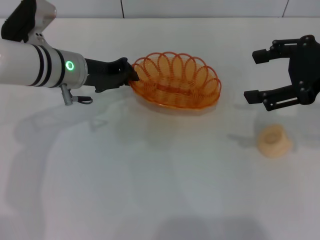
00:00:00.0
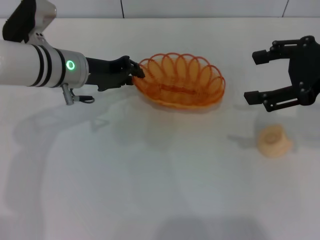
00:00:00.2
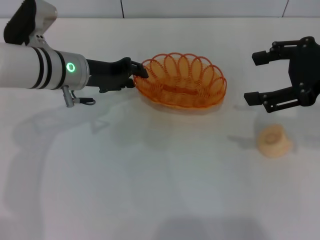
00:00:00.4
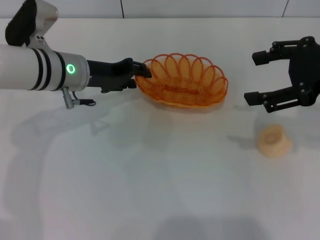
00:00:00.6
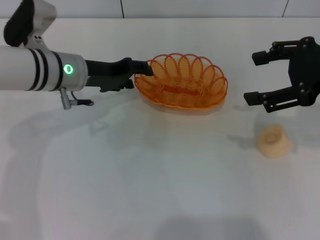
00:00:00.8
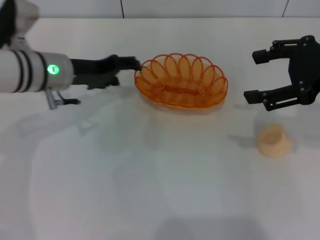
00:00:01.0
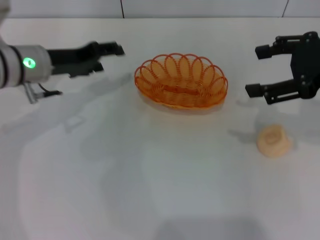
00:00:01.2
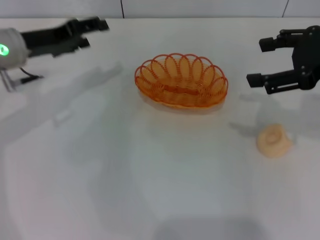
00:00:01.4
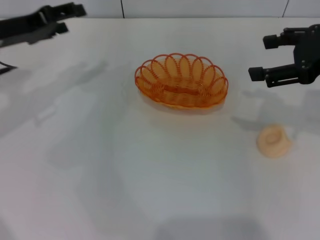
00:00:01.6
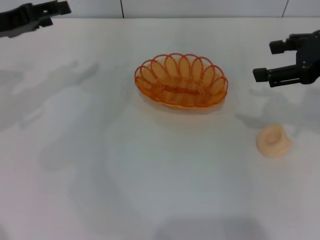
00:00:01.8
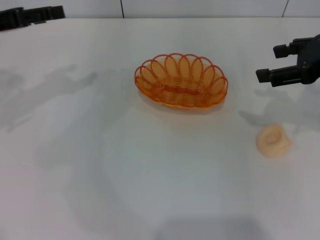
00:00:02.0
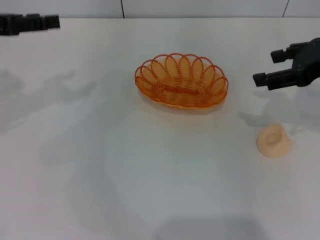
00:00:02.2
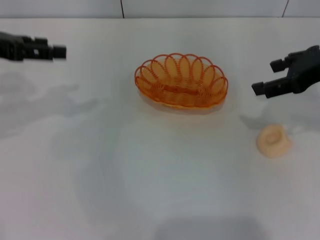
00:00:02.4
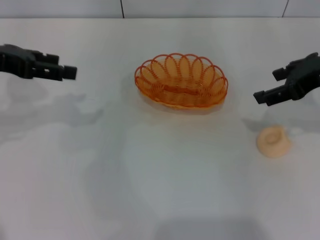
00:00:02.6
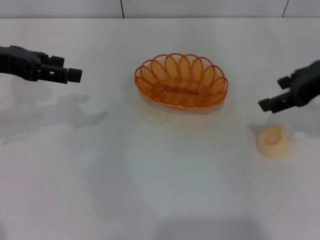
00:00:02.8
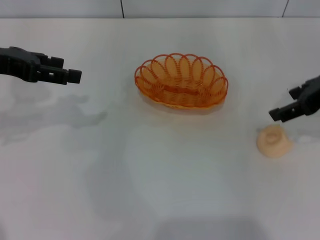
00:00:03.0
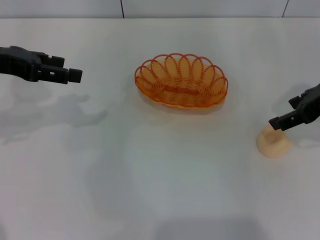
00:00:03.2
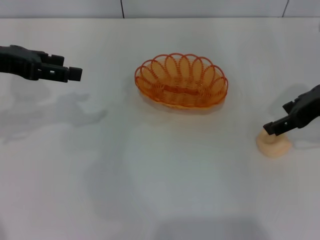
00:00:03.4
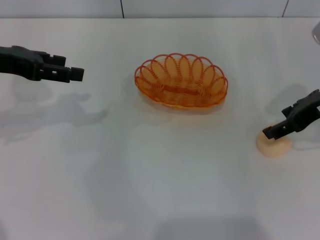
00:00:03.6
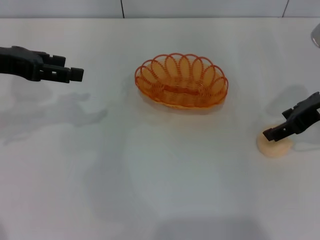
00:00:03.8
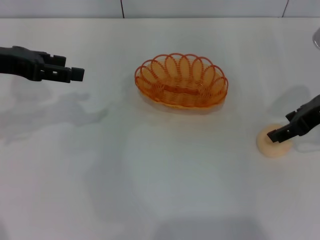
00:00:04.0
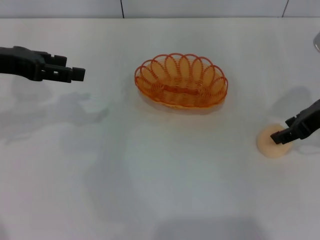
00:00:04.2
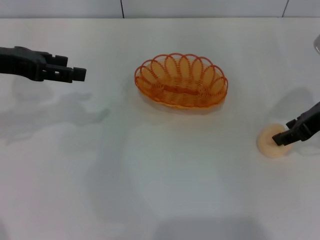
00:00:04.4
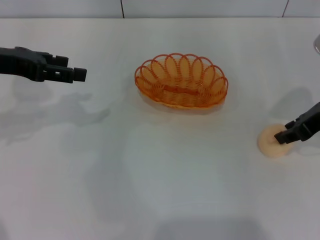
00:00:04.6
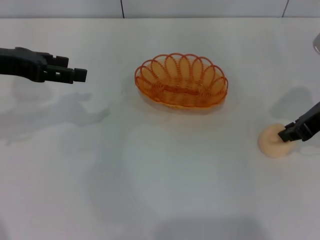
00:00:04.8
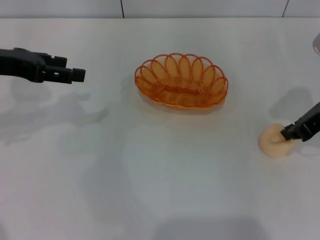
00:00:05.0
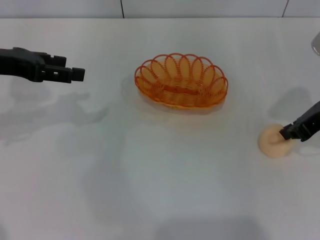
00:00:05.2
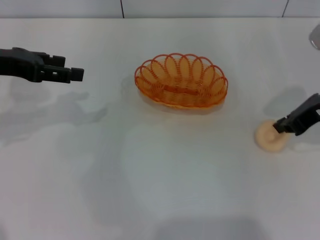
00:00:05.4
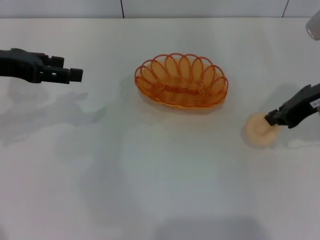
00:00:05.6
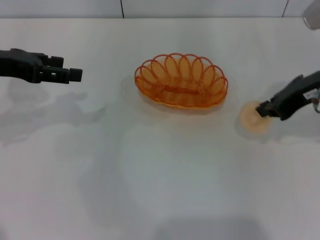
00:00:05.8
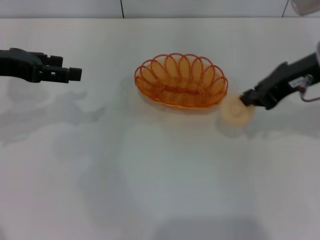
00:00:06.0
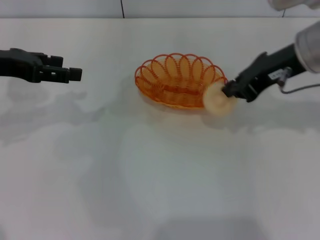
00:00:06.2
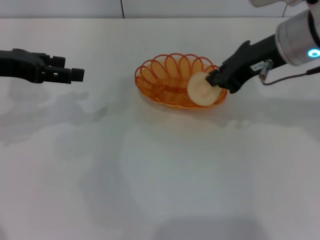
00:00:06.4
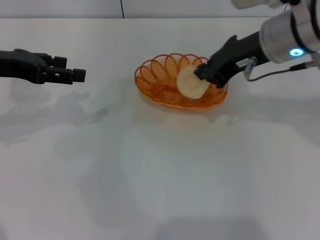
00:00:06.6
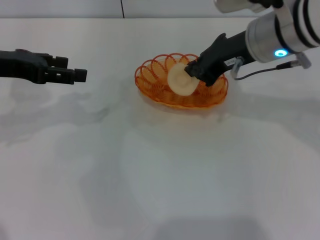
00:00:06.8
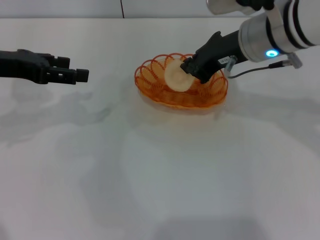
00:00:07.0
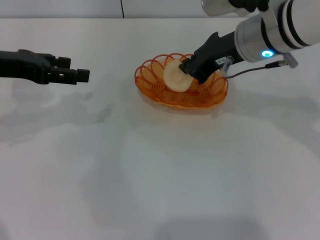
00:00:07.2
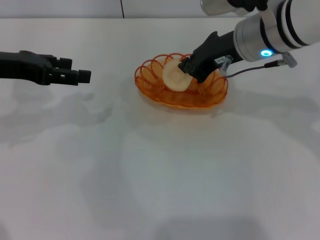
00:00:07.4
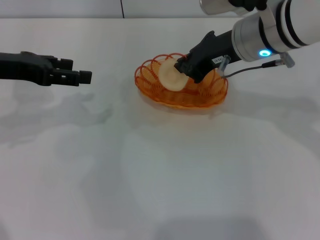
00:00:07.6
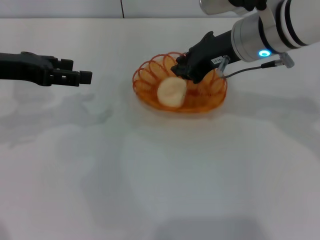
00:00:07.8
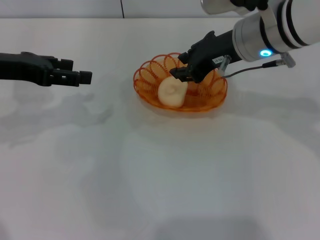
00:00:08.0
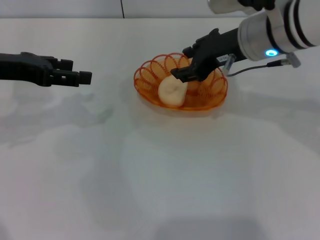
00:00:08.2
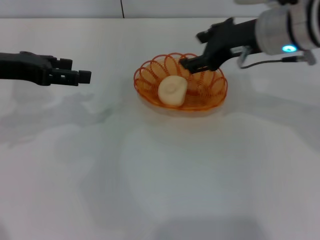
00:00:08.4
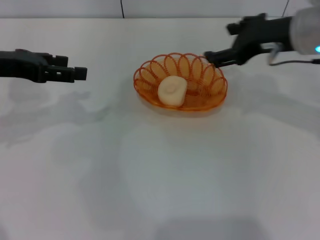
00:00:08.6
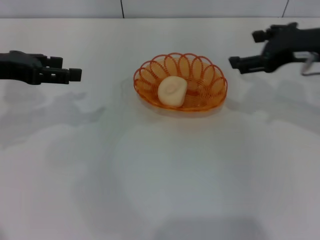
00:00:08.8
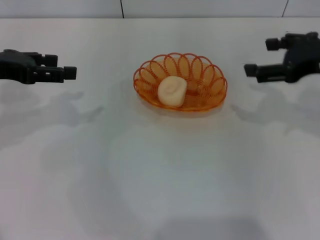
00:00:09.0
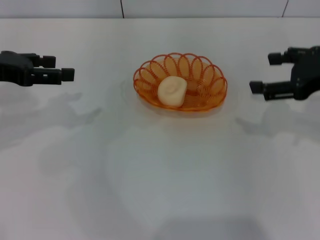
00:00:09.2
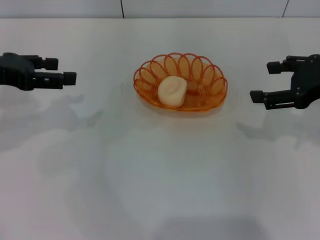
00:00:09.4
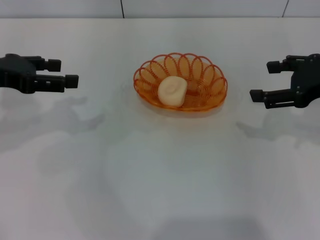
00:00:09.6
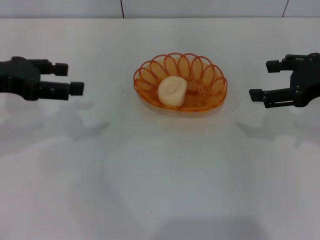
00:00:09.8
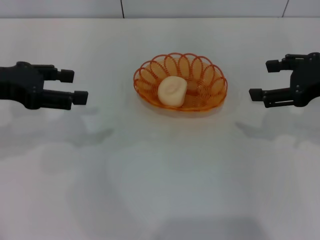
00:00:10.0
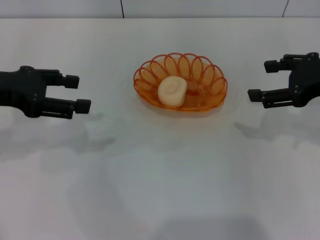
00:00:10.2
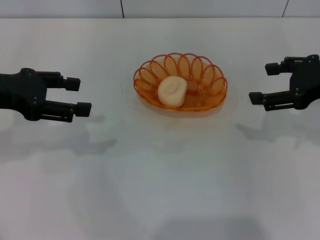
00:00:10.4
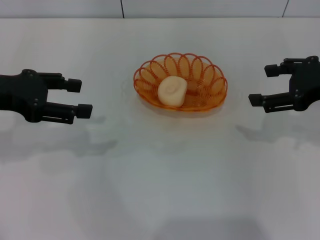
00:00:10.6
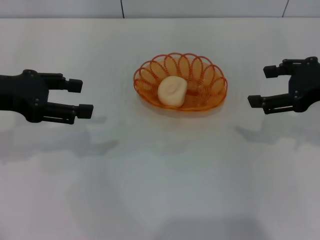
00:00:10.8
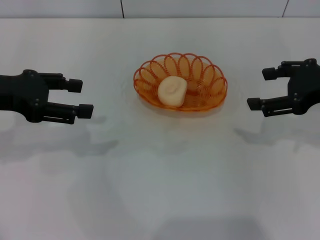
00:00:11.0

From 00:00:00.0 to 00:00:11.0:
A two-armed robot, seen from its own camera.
Step, from 00:00:01.2 to 00:00:05.8: Pick up the egg yolk pastry with the right gripper.
Step, from 00:00:06.0 to 00:00:08.2: Place the egg yolk pastry into the basket with the right gripper.
From 00:00:00.0 to 00:00:01.6: The left gripper travels to the left and upward by about 10 cm, and opens.
From 00:00:01.6 to 00:00:03.2: The left gripper changes place by roughly 5 cm.
From 00:00:03.2 to 00:00:04.8: The right gripper closes.
From 00:00:04.8 to 00:00:06.2: The right gripper travels to the left and upward by some 10 cm, and closes.
From 00:00:06.2 to 00:00:07.8: The right gripper heads to the left, covering roughly 5 cm.
From 00:00:07.8 to 00:00:09.4: The right gripper travels to the right and backward by approximately 20 cm, and opens up.
From 00:00:09.4 to 00:00:11.0: The grippers stay close to where they were, moving slightly.
